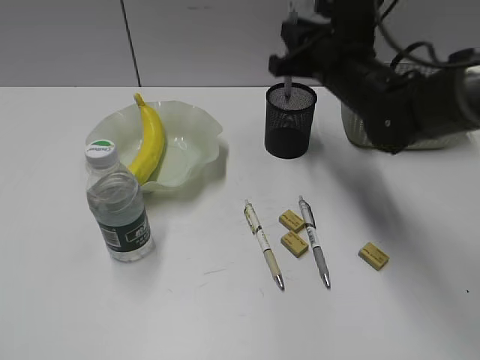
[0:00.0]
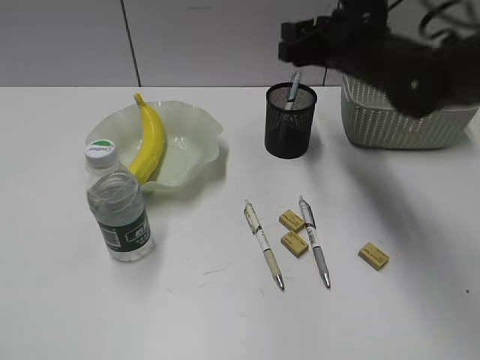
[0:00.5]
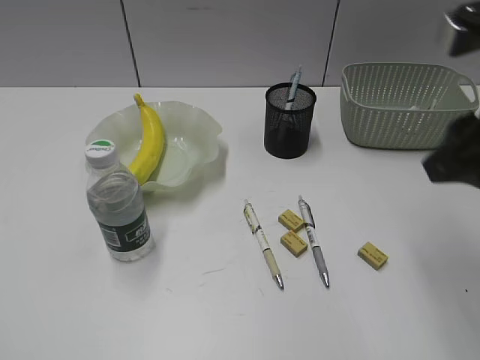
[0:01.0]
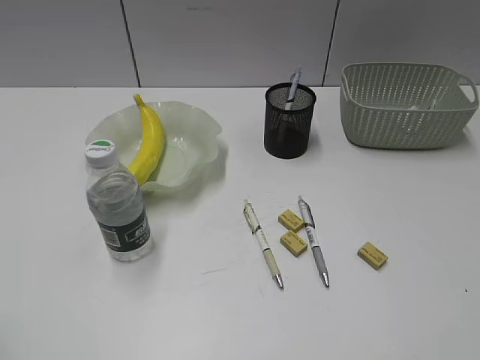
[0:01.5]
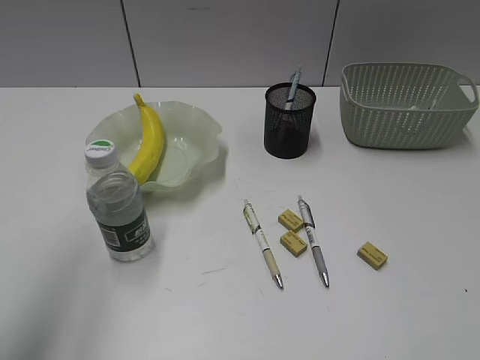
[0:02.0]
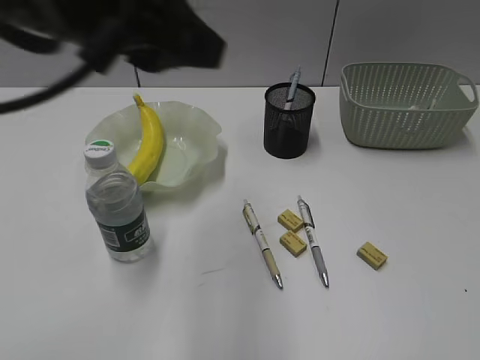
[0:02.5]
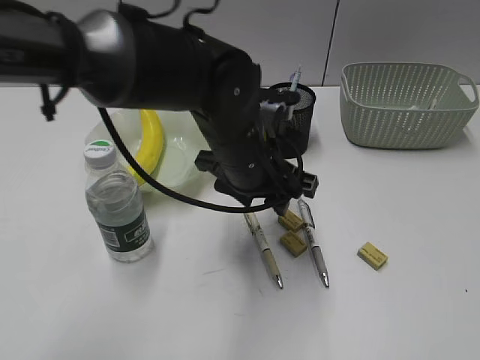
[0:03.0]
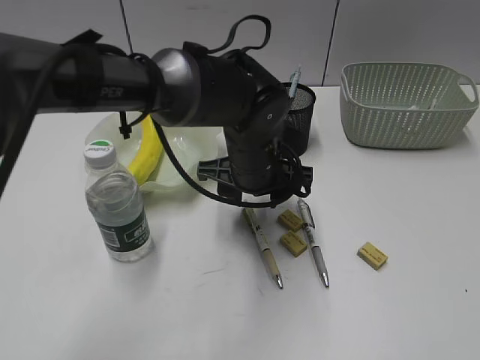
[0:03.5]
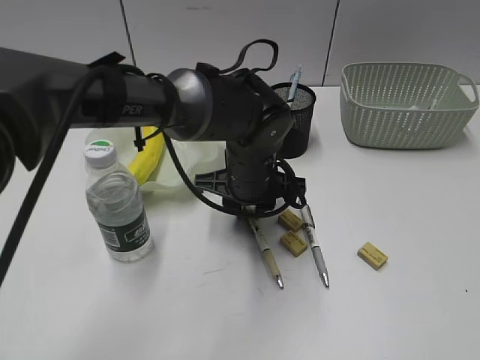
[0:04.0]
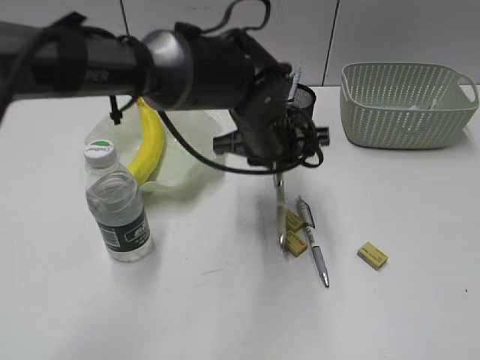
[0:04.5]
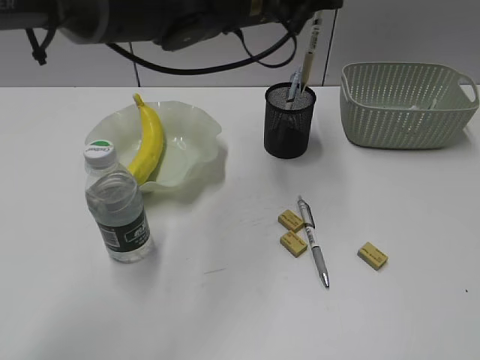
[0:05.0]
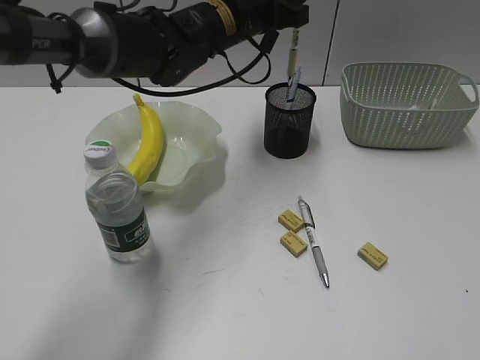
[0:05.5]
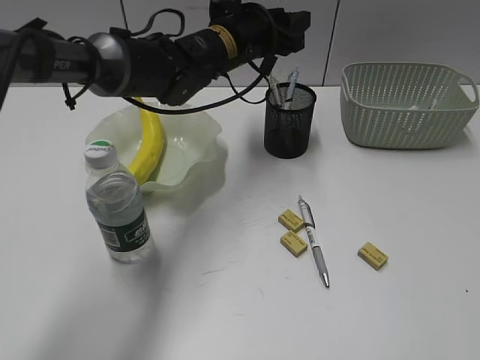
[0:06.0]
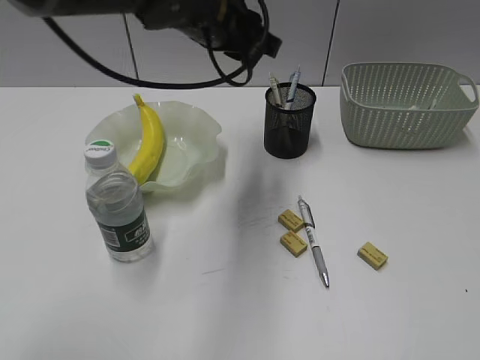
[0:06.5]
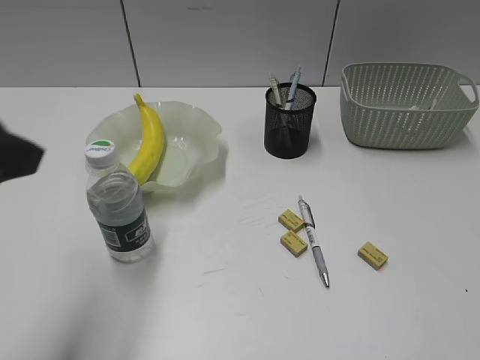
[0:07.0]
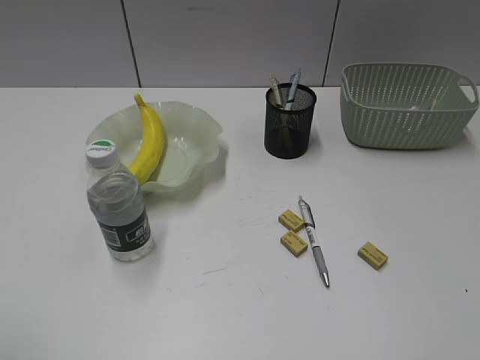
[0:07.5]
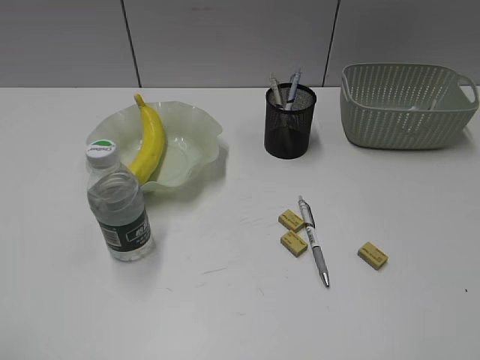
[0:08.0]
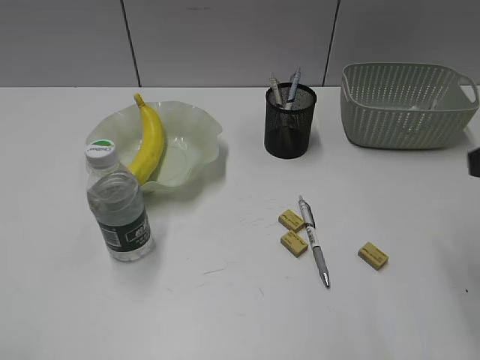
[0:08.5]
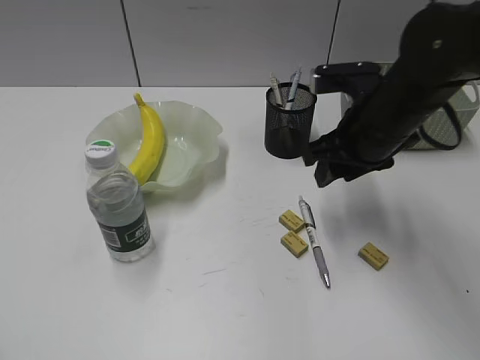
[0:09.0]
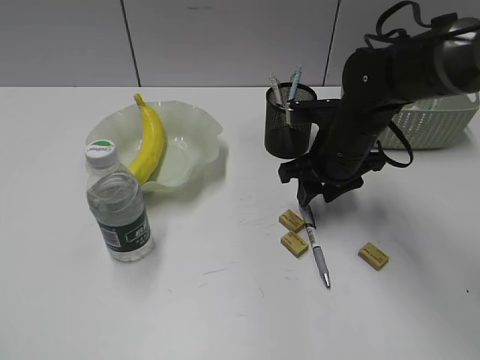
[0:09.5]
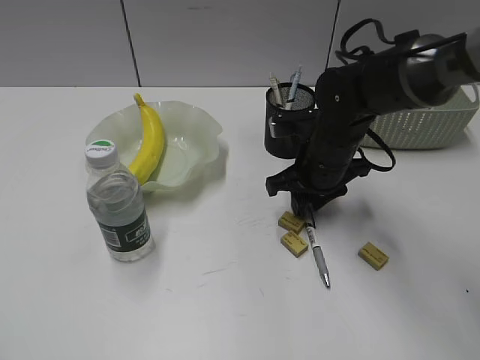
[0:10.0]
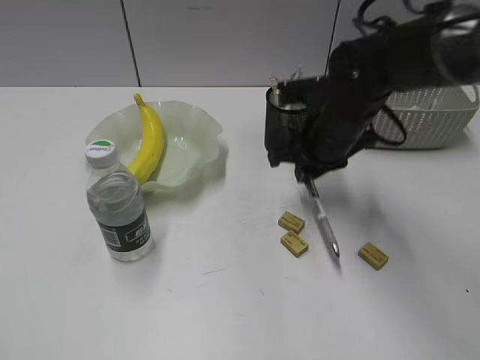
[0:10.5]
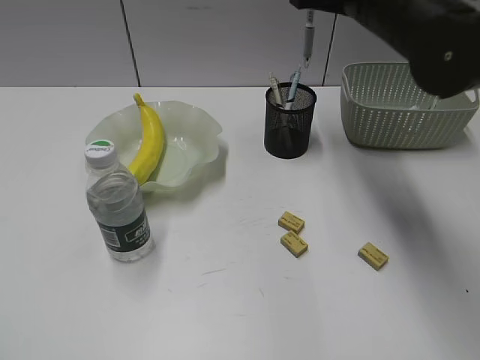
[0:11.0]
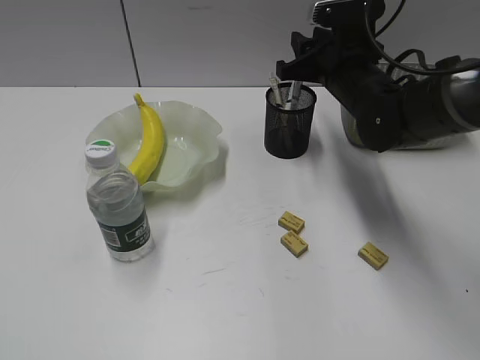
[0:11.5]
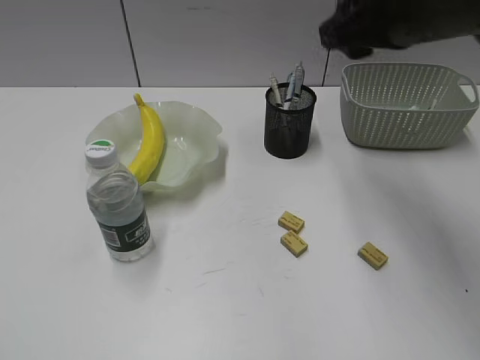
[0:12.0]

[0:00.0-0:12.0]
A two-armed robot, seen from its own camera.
Step, 0:00.5 to 0:04.0: Grasp the yellow pen with left gripper.
Step, 0:04.5 to 0:05.5: Place the yellow pen in pen holder with left gripper.
Step, 0:06.0 to 0:10.0: Grasp the gray pen with left gripper.
0:00.0 to 0:02.0: The left gripper shifts some 15 cm forward and upward. The right gripper goes roughly 40 cm backward and to the right, and opens and closes again.
0:02.0 to 0:04.0: The left gripper travels to the right, downward and forward by about 40 cm.
0:04.0 to 0:06.0: The left gripper heads forward and upward, covering approximately 15 cm, and opens up.
0:06.0 to 0:08.0: The left gripper heads backward and to the left, covering some 50 cm.
0:08.0 to 0:10.0: The left gripper closes its fingers. The right gripper goes some 40 cm forward, to the left and downward.
0:10.0 to 0:12.0: The right gripper swings up and down, some 20 cm each way, with 2 reversals.

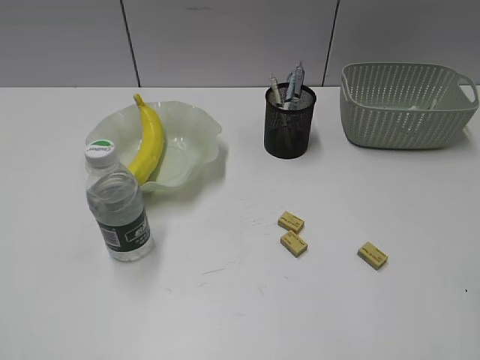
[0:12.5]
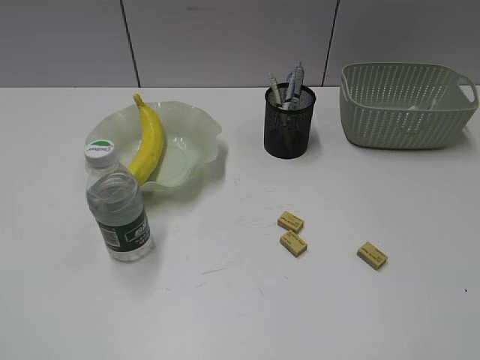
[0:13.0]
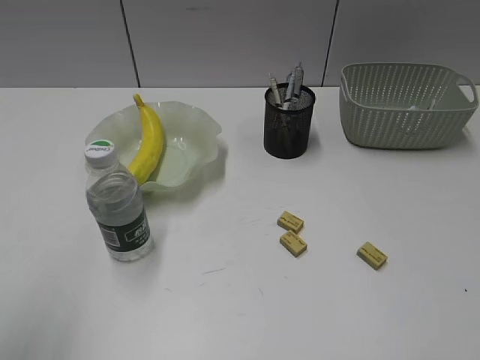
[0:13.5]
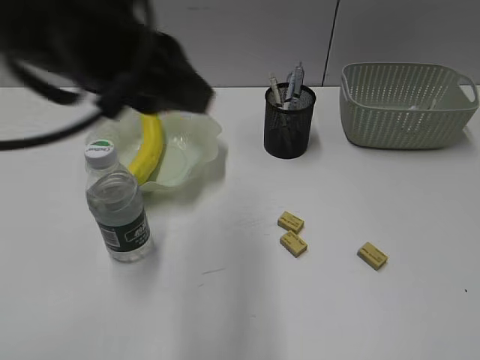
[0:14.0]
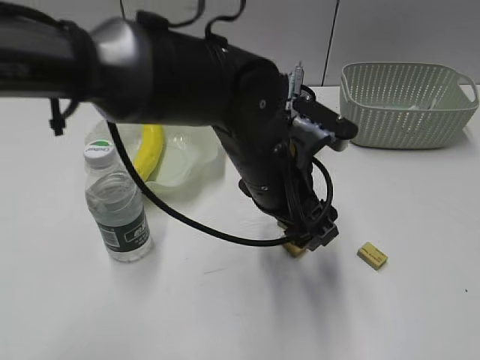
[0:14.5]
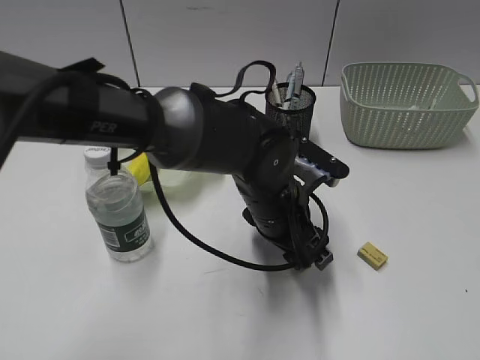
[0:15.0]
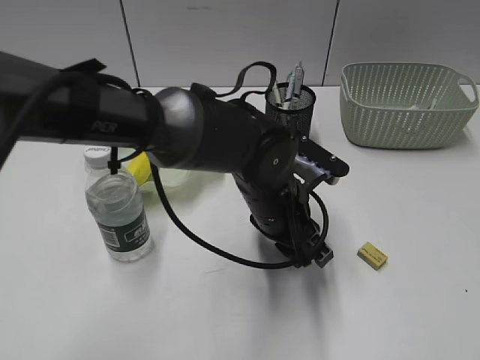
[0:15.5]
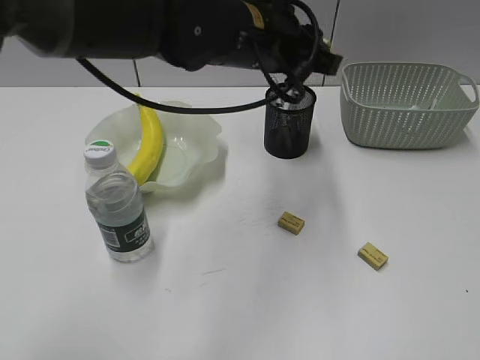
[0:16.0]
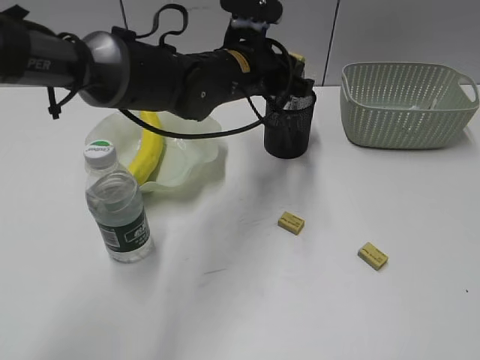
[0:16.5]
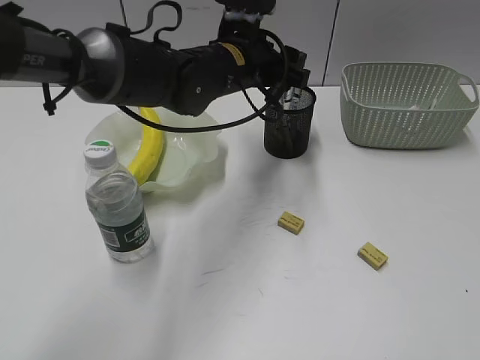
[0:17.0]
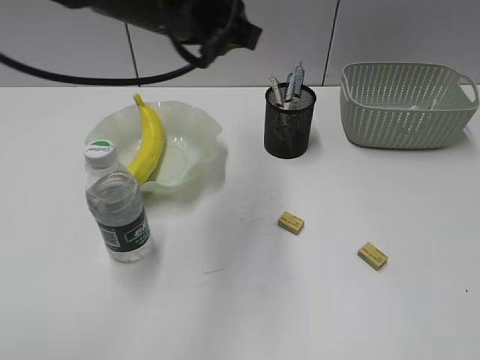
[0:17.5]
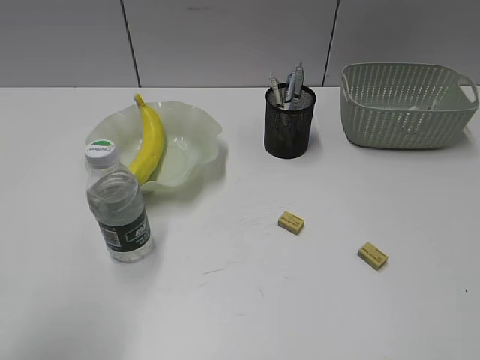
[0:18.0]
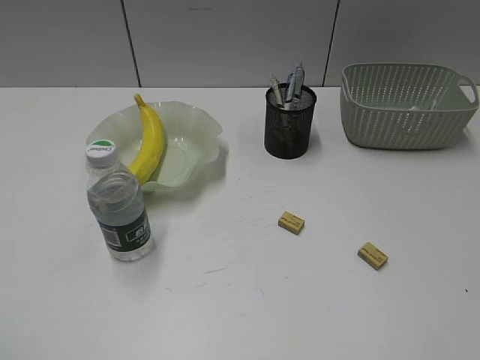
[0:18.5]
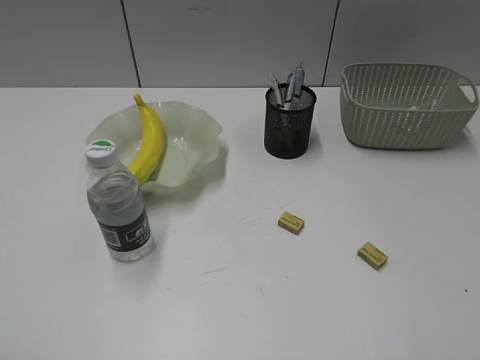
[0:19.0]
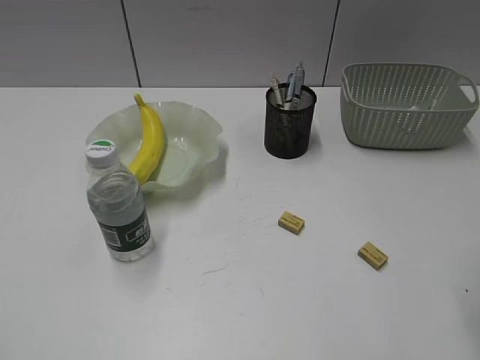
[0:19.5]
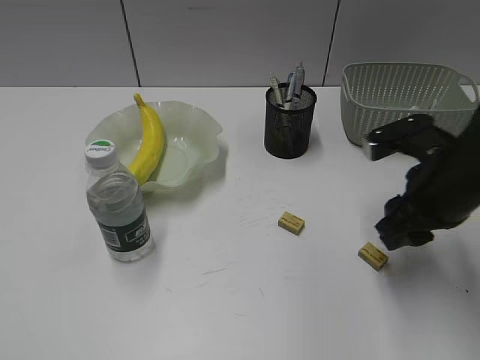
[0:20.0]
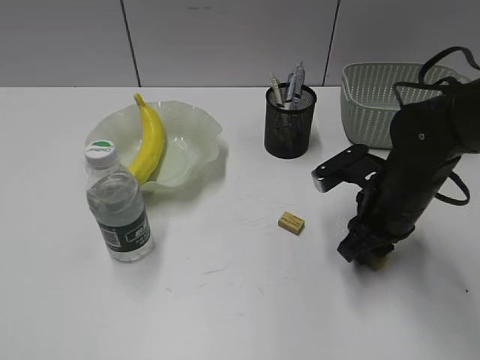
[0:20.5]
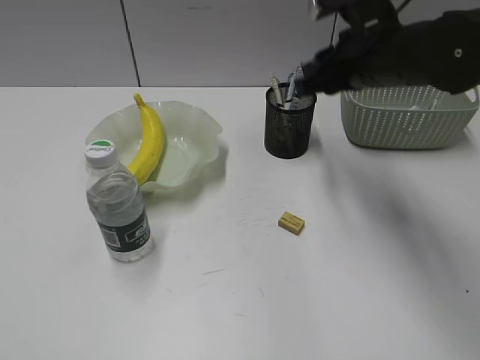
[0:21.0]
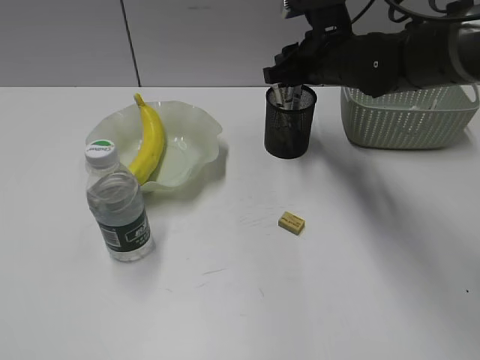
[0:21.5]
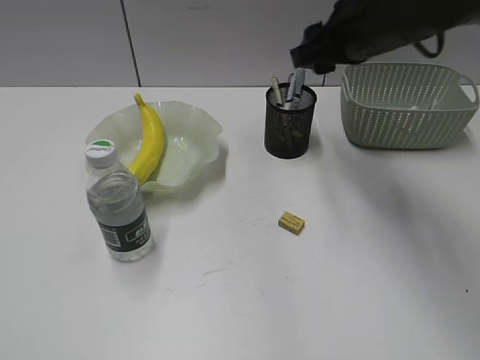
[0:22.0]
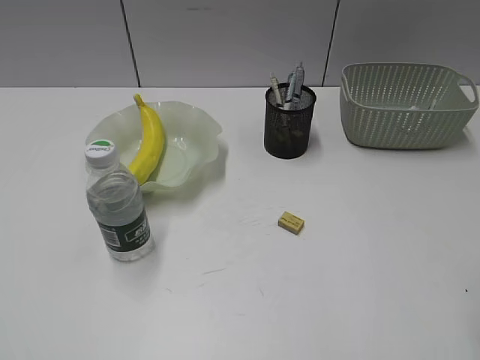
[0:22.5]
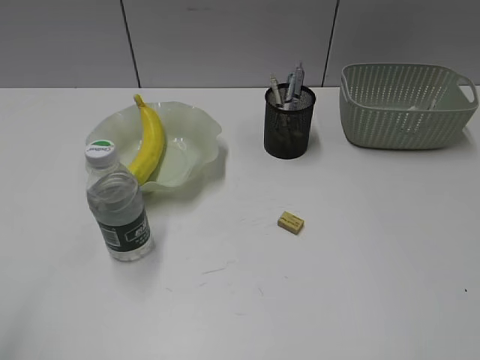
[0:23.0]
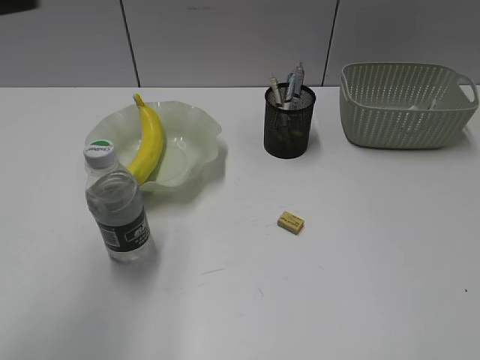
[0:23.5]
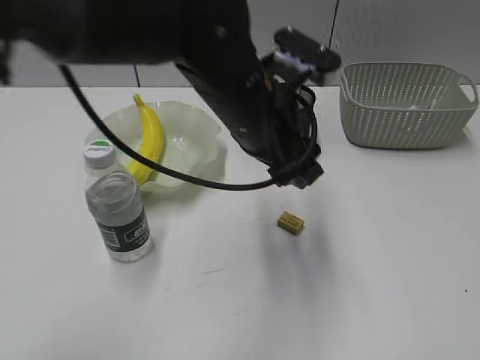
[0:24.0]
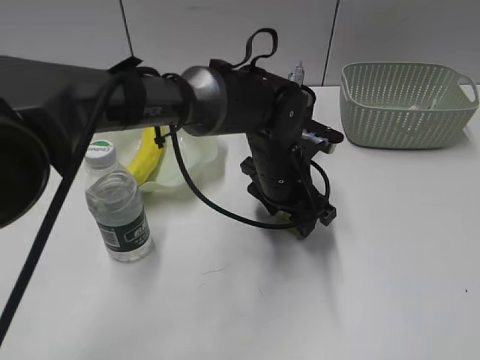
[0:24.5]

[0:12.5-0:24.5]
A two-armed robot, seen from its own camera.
Step, 0:12.5 to 0:15.0: Grasp the eraser with left gripper.
Step, 0:15.5 to 0:17.0: Place the eraser in pen holder with left gripper.
Step, 0:17.5 to 0:20.5: Grasp the eraser with right gripper.
Step, 0:21.0 to 0:21.5: Place the eraser in pen holder with right gripper.
0:12.5 to 0:14.5: The left gripper travels to the right and forward by roughly 40 cm, and opens up. The right gripper is displaced backward and to the right by roughly 15 cm.
0:14.5 to 0:16.5: The left gripper moves up and down over about 15 cm, changing direction 2 times, and closes.
0:16.5 to 0:18.5: The left gripper is displaced backward and to the left by about 50 cm, and opens up.
0:18.5 to 0:20.5: The right gripper shifts roughly 35 cm forward, downward and to the left.
0:20.5 to 0:22.5: The right gripper is displaced upward and backward by approximately 25 cm.
0:22.5 to 0:24.5: The left gripper heads to the right, forward and downward, covering approximately 50 cm. The right gripper shifts some 15 cm backward and to the right.

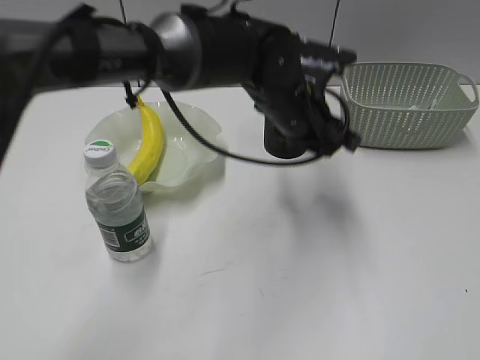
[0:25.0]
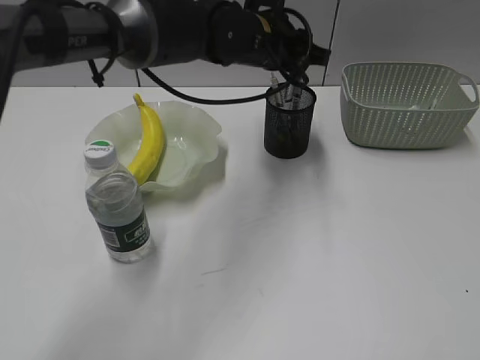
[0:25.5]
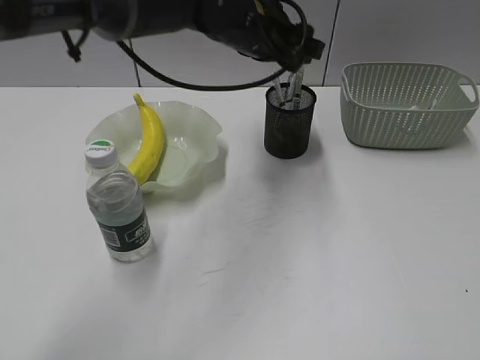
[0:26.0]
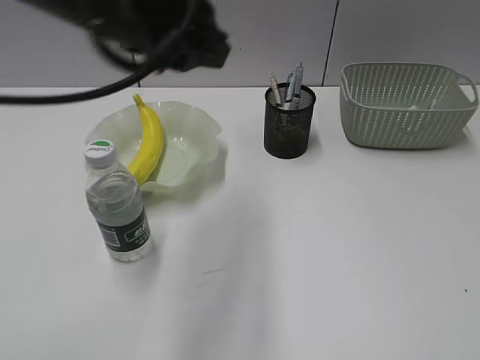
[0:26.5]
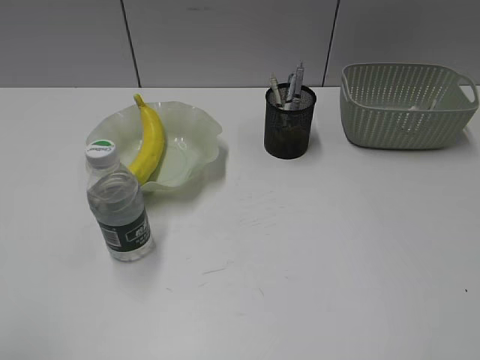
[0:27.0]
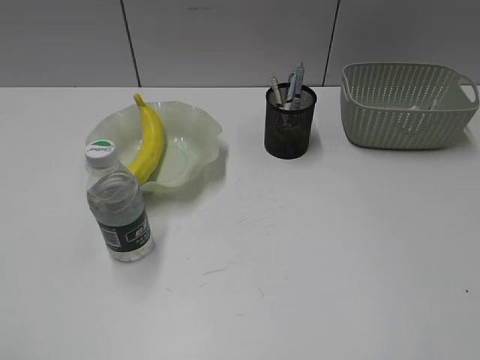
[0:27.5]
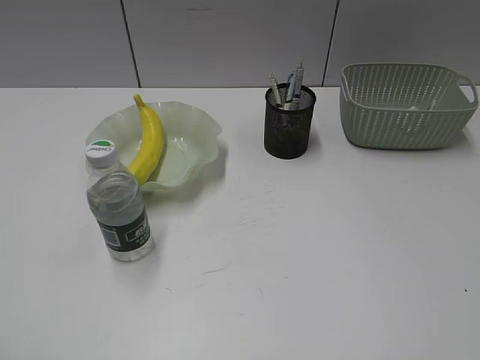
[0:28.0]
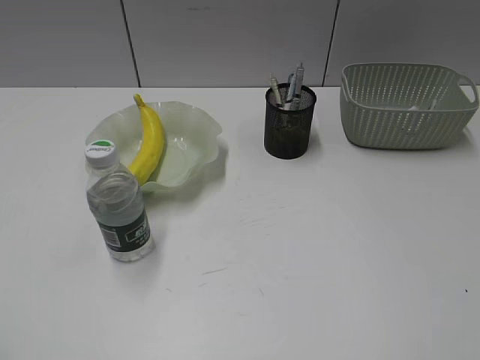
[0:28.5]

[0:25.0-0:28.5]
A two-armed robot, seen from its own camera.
Step, 0:25.0 to 0:25.5: Place the eraser in pen holder with left gripper.
0:25.0 to 0:27.0: The left gripper shifts about 50 cm to the left and backward.
